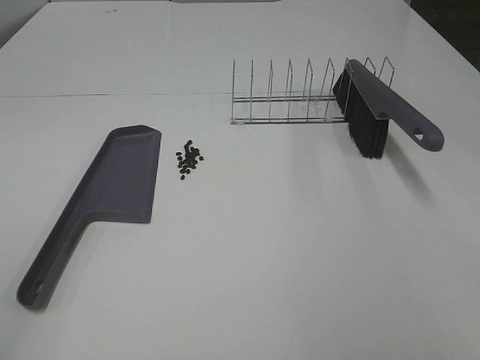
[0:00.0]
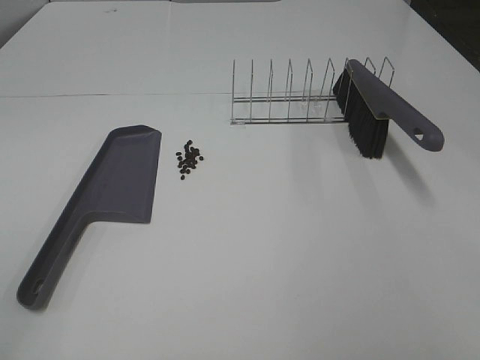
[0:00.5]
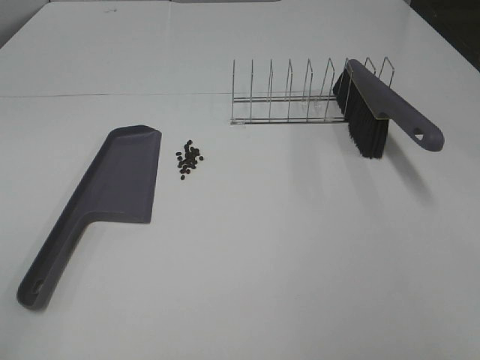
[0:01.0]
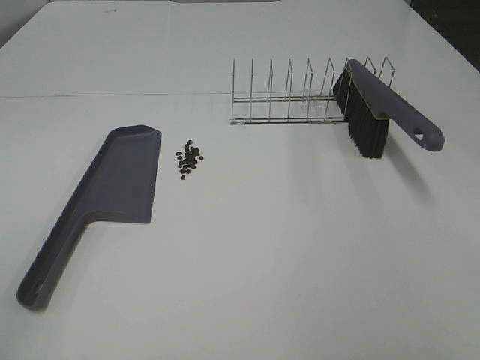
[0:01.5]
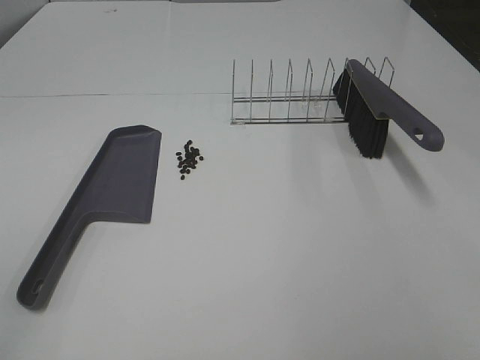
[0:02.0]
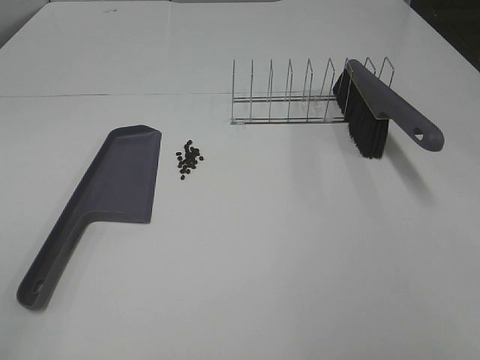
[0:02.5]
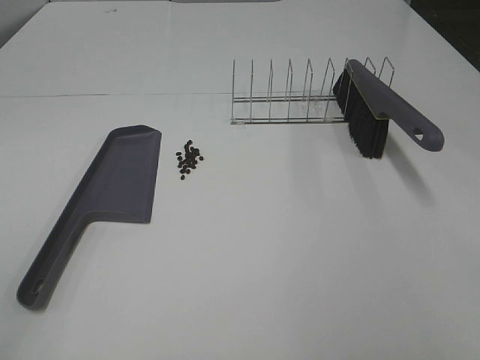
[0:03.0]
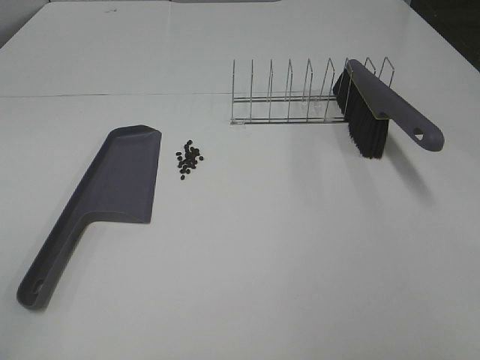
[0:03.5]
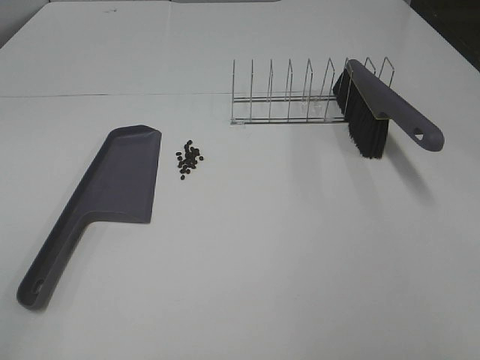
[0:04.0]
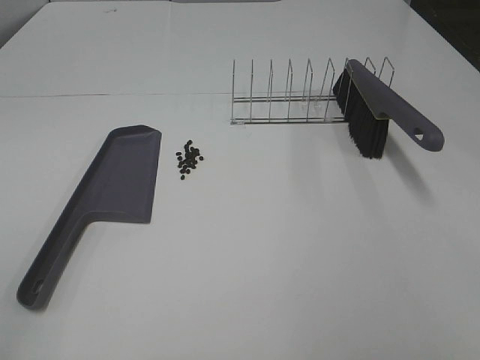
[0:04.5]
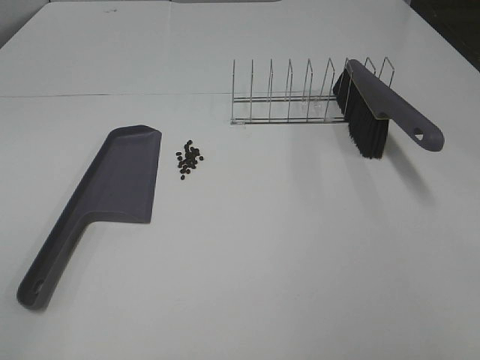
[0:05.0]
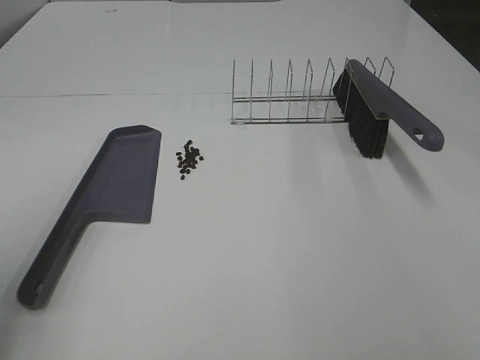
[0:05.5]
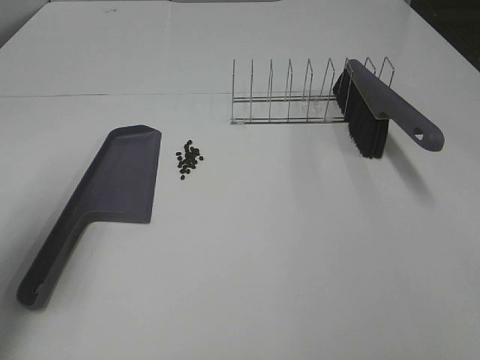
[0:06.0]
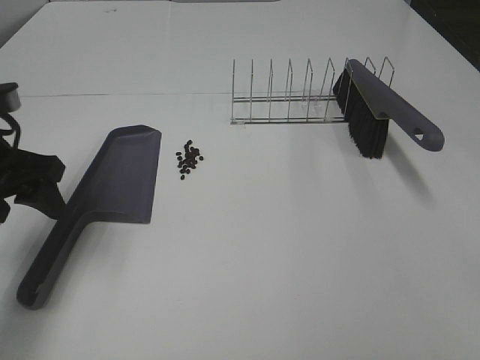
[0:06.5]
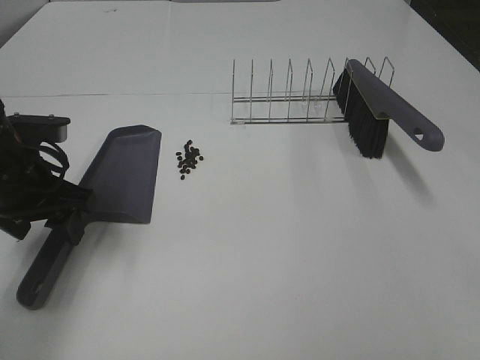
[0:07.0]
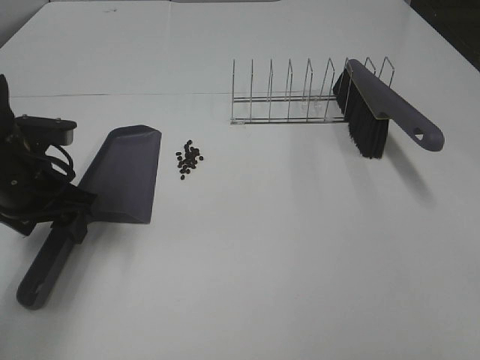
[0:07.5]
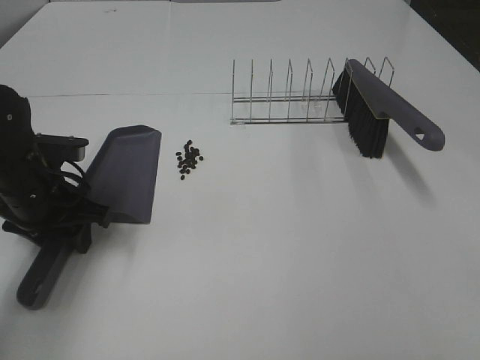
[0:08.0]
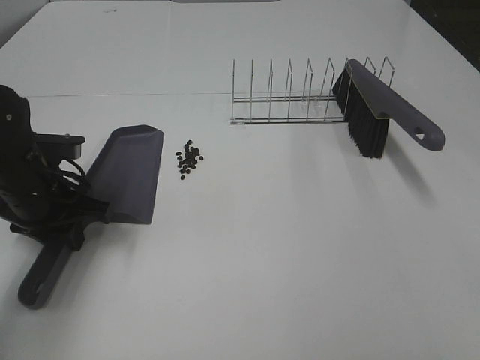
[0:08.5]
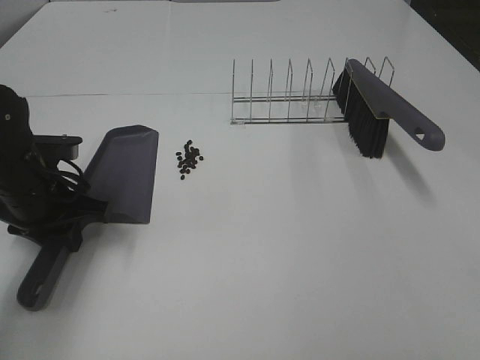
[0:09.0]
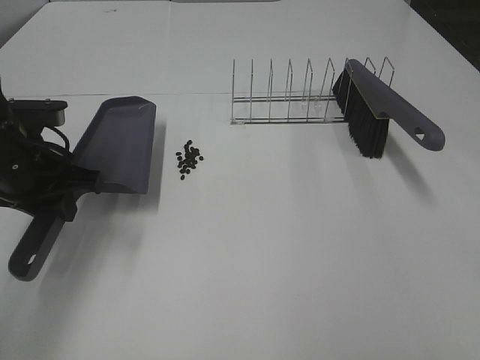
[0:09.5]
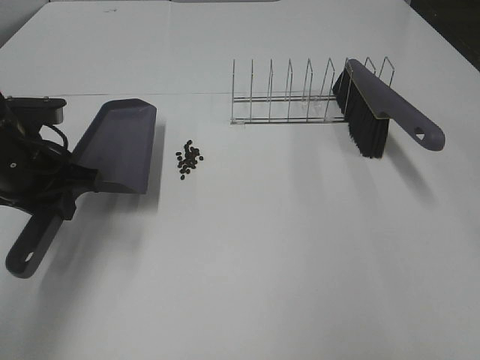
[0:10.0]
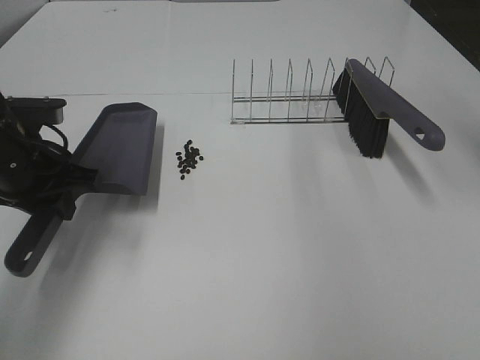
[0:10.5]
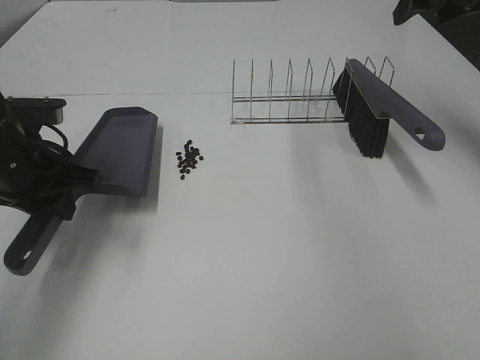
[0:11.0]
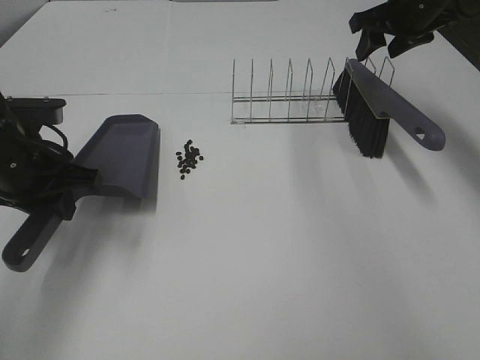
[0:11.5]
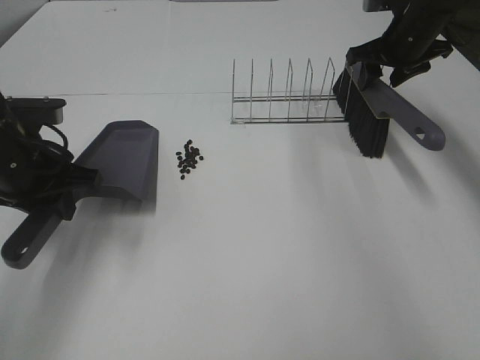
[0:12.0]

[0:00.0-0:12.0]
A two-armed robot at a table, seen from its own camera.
Task of the whole recording: Sweep Coffee Bean.
Step, 0:00.0 to 0:08.0: Left hand: grab the dustpan.
0:00.0 to 0:04.0: Both grippers stay put.
0:04.0 to 0:06.0: The left gripper goes roughly 20 cm forward.
0:06.0 to 0:08.0: The left gripper travels downward, forward and to the right by approximately 20 cm, and closes.
0:08.0 to 0:10.0: The left gripper heads upward, covering roughly 5 cm, and closes.
0:10.0 to 0:12.0: The right gripper travels forward and downward by some 40 cm, and closes up.

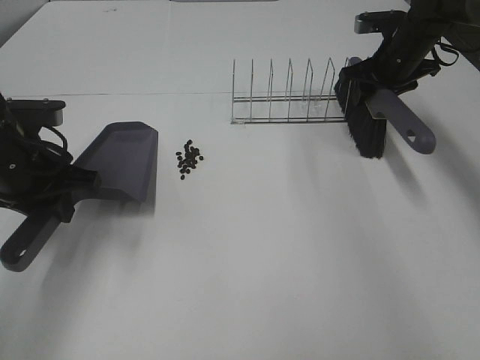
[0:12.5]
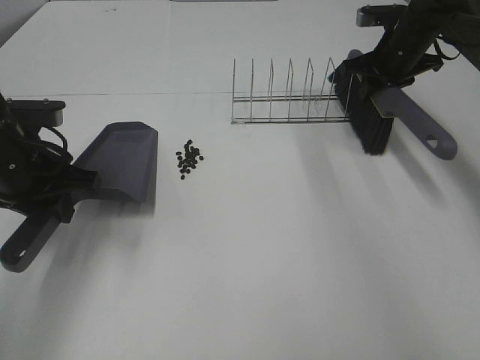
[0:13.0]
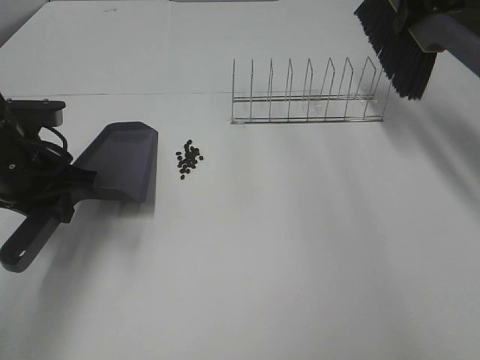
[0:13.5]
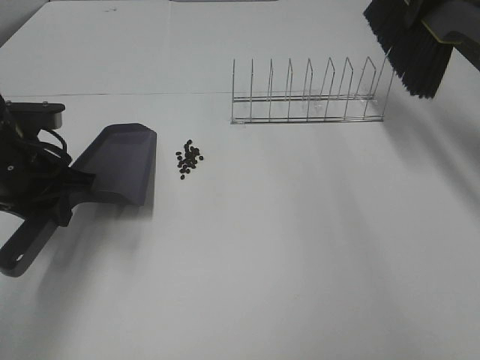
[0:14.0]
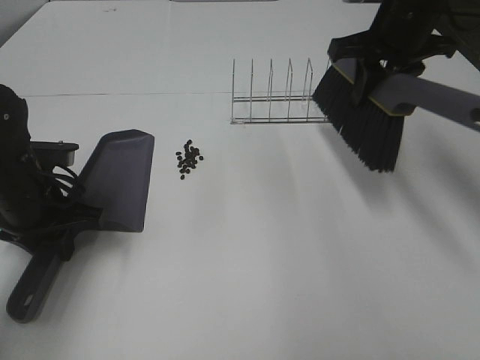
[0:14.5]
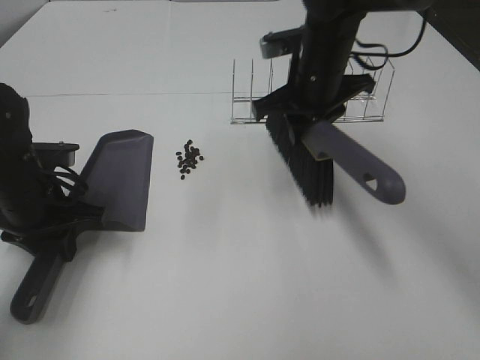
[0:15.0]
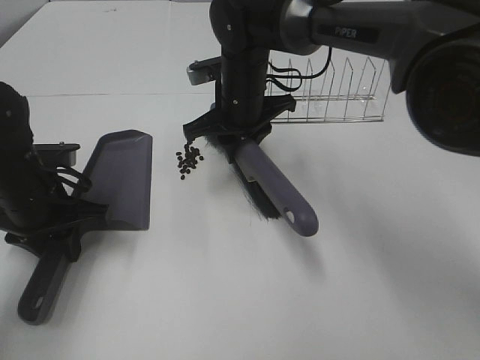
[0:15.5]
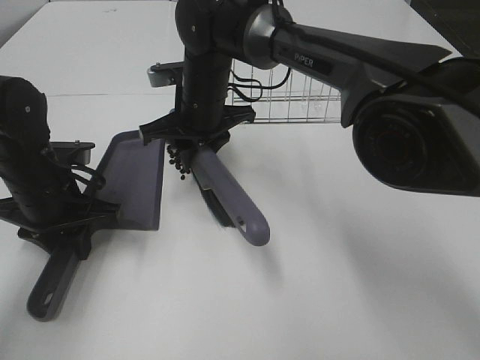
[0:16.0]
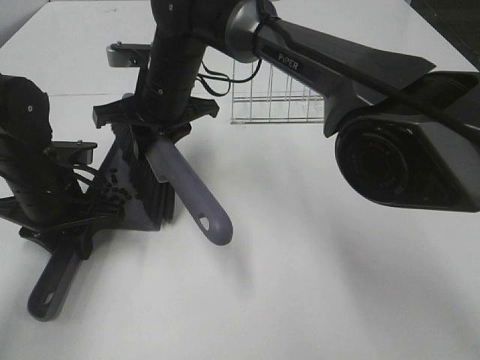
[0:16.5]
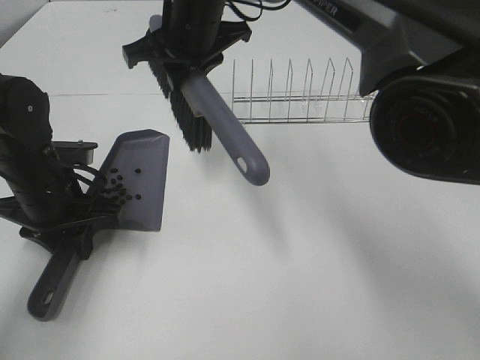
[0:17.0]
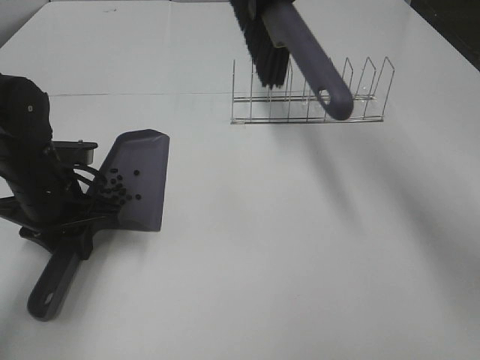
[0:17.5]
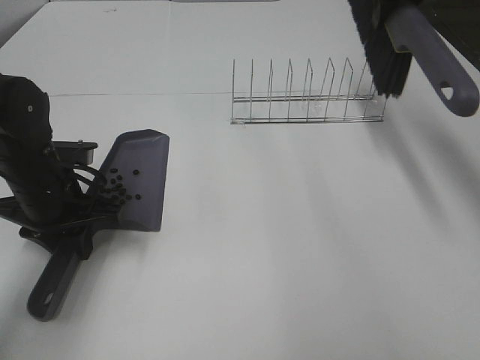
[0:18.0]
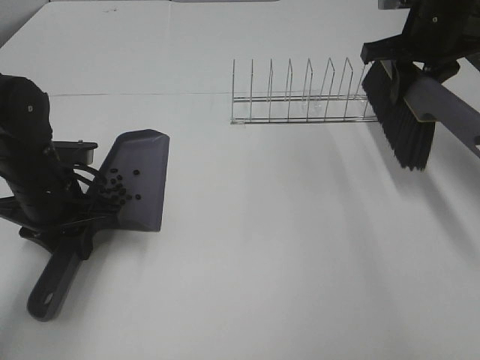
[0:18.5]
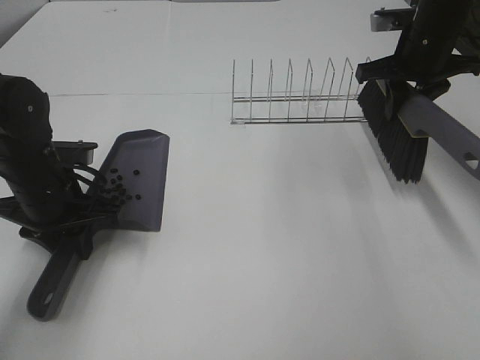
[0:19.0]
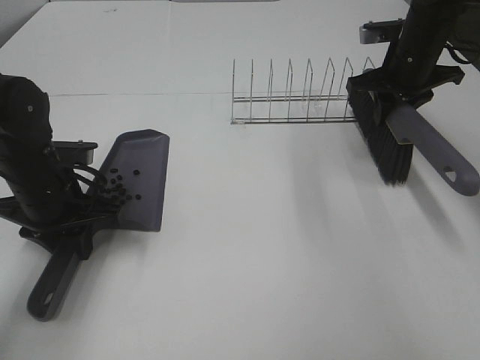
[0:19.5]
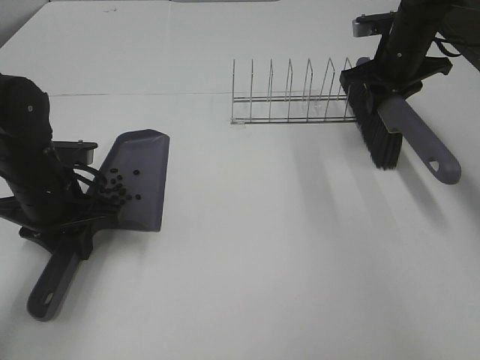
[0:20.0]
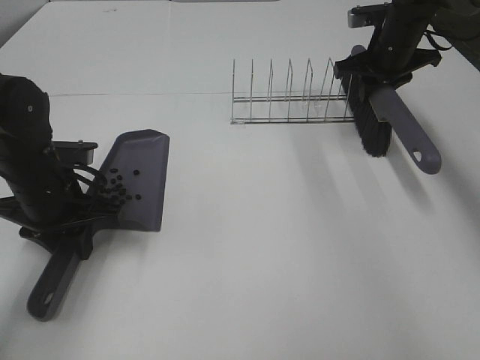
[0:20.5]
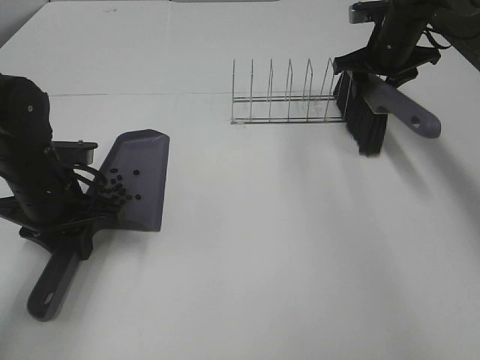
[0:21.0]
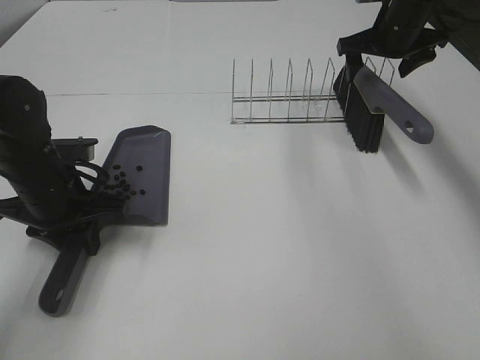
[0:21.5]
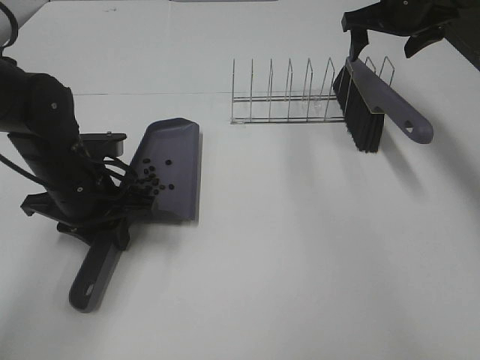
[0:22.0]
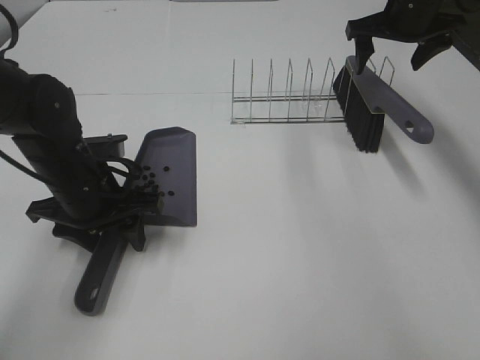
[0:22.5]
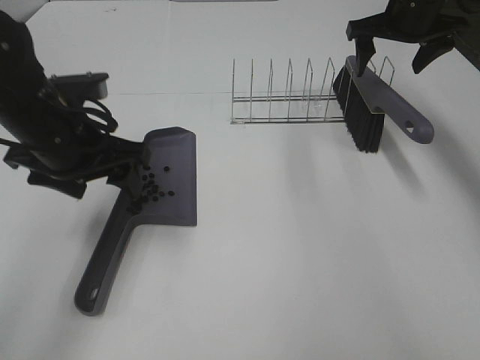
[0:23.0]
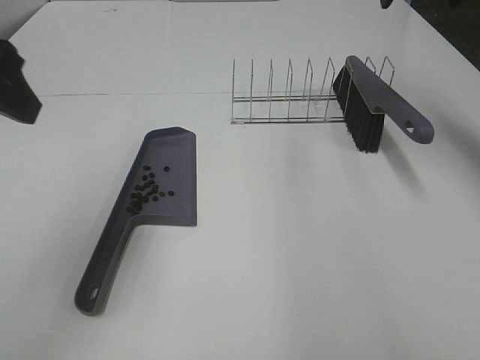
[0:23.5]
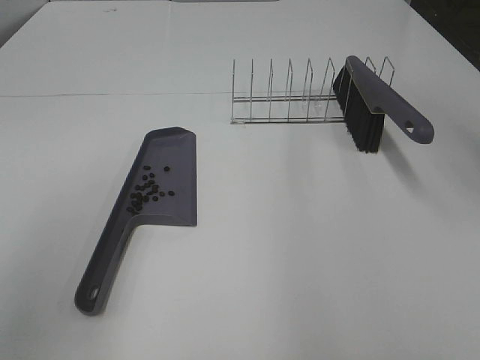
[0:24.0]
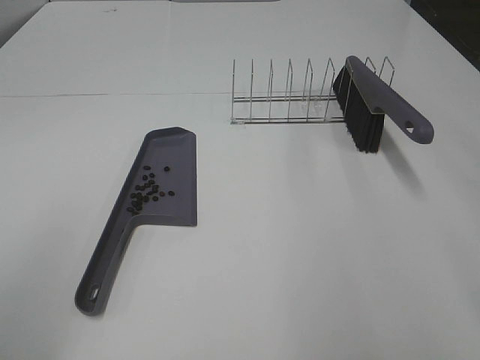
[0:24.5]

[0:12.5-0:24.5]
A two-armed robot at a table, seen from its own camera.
Task of the whole recording: Sweep Coffee Bean.
Step, 0:13.0 to 0:16.5: Right hand:sweep the coffee beans into the dustpan.
Step, 0:17.0 to 0:21.0: Right hand:place the broom on the rack.
Step, 0:21.5 to 0:22.5: Left hand:place the dustpan on the table.
0:12.5 to 0:14.5: The right gripper heads backward, upward and to the left, covering roughly 15 cm, and closes.
0:14.5 to 0:16.5: The right gripper goes approximately 25 cm to the left.
0:16.5 to 0:18.5: The right gripper travels to the right by about 35 cm.
0:18.5 to 0:20.5: The right gripper travels forward and downward by about 10 cm.
0:20.5 to 0:22.5: The left gripper opens its fingers. Meanwhile the right gripper goes about 5 cm upward, and opens up.
0:22.5 to 0:24.5: The right gripper is displaced backward by roughly 35 cm. The left gripper heads backward, upward and to the left, covering approximately 35 cm.

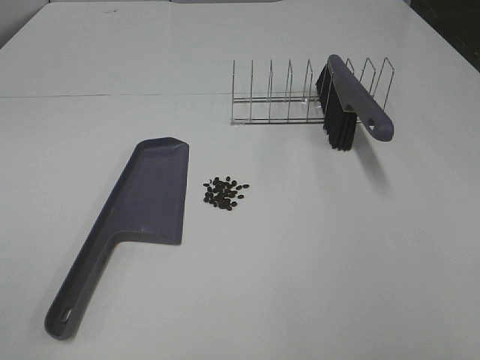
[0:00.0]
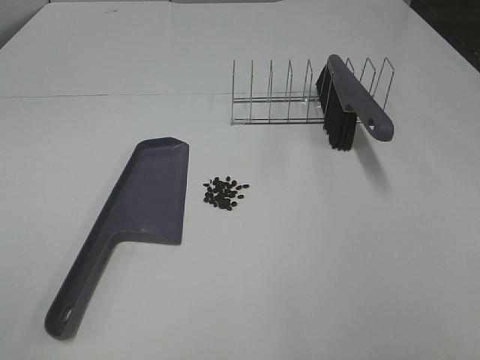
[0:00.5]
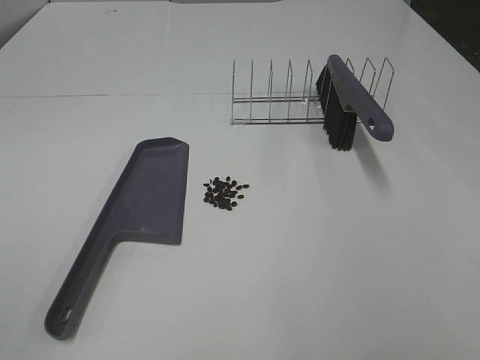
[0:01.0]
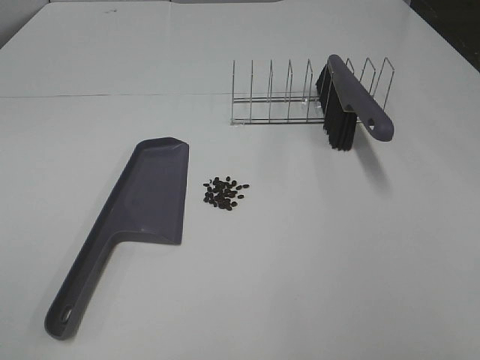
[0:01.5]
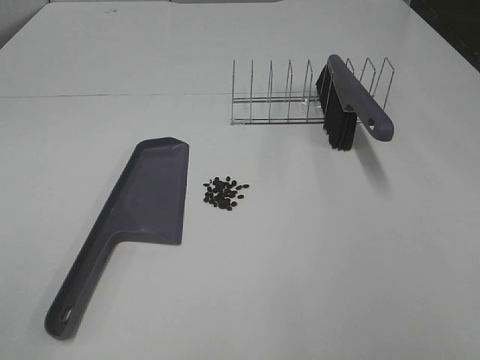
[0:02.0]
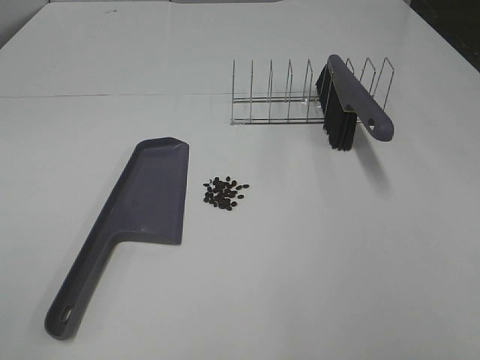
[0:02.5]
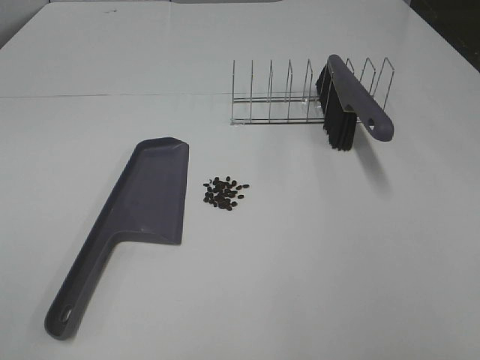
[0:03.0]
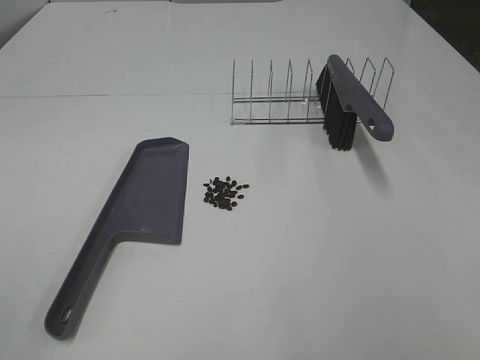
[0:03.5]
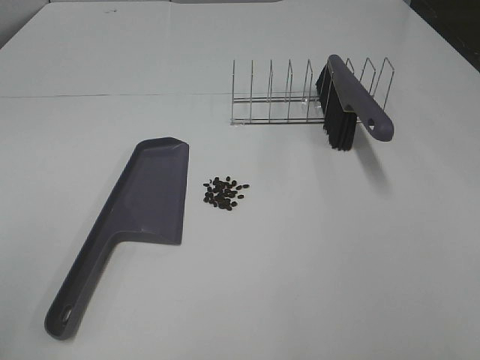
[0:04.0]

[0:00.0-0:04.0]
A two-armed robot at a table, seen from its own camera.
Task of the whole recording: Sweep Coffee Bean.
0:00.0 to 0:02.0: Both grippers stay put.
